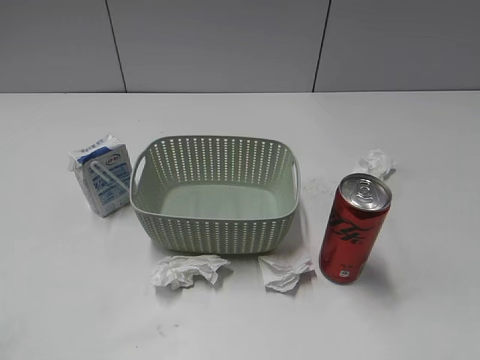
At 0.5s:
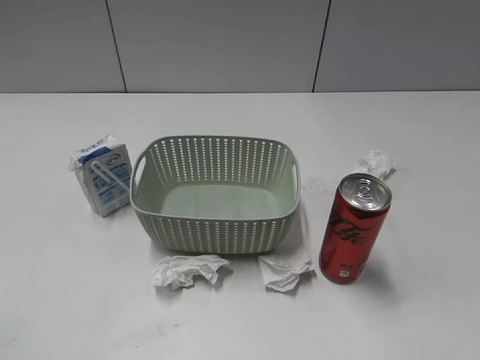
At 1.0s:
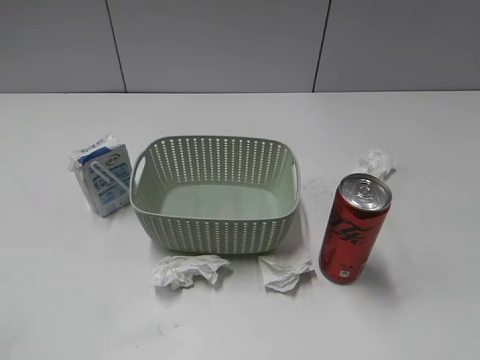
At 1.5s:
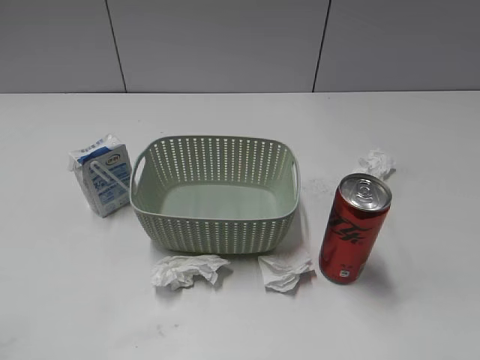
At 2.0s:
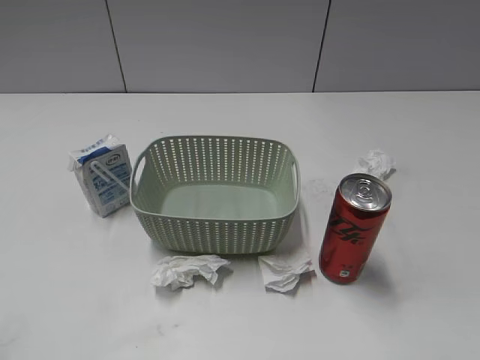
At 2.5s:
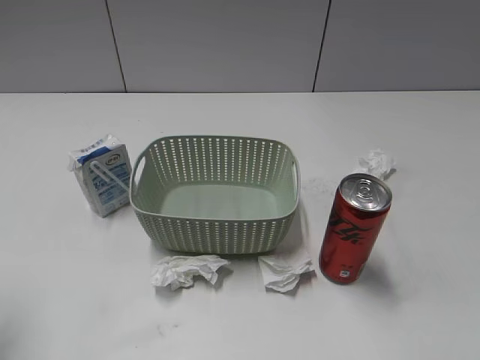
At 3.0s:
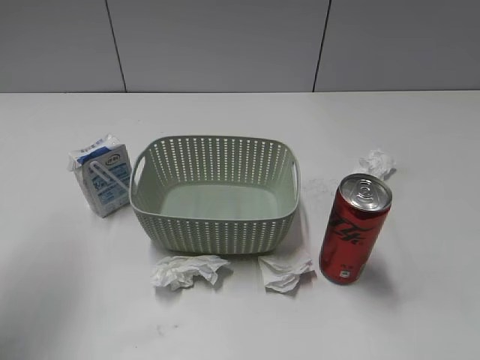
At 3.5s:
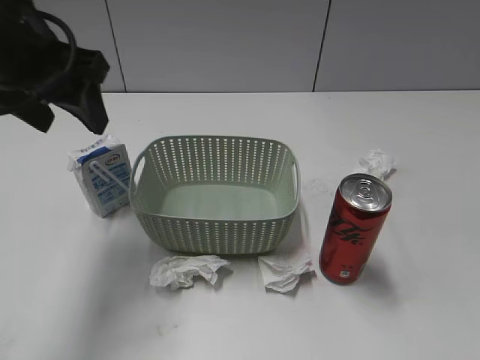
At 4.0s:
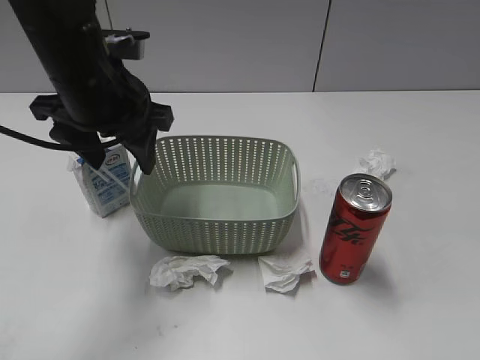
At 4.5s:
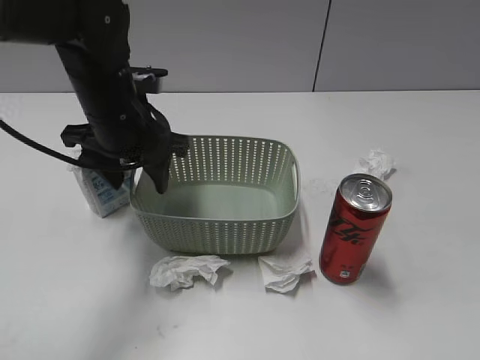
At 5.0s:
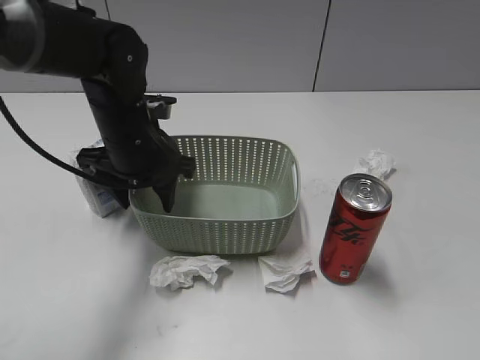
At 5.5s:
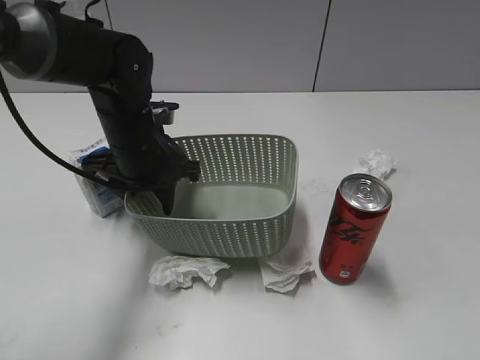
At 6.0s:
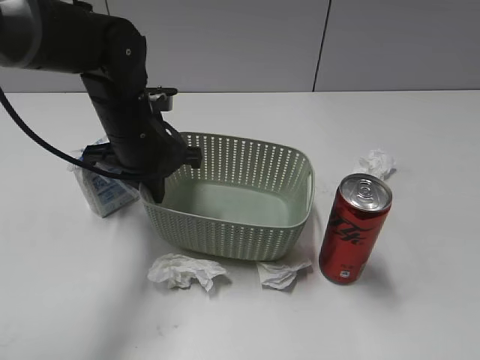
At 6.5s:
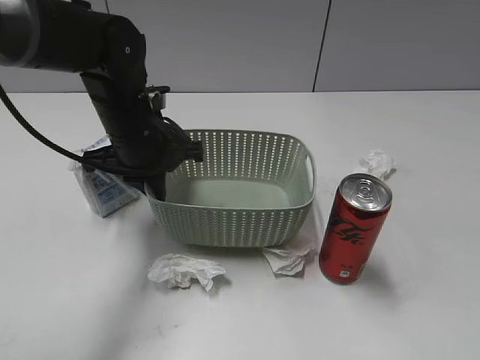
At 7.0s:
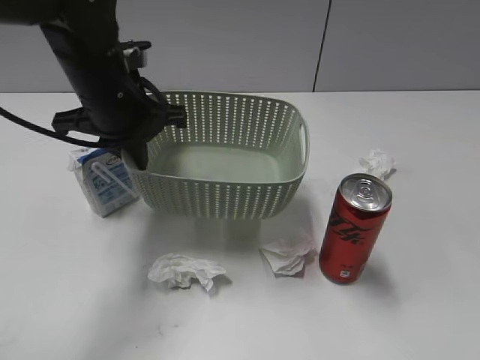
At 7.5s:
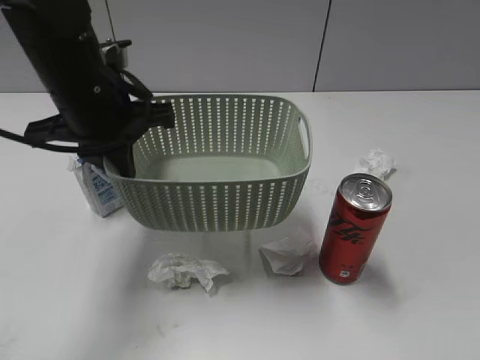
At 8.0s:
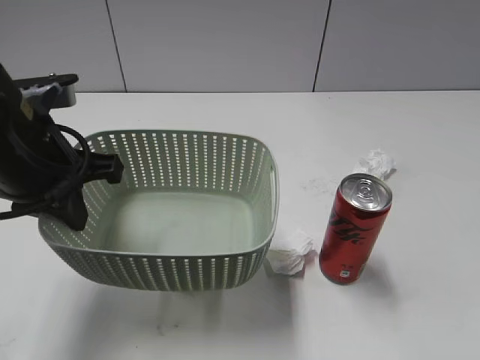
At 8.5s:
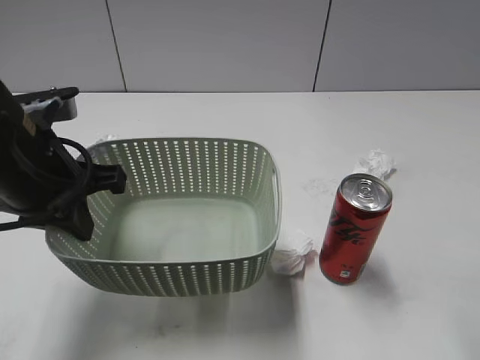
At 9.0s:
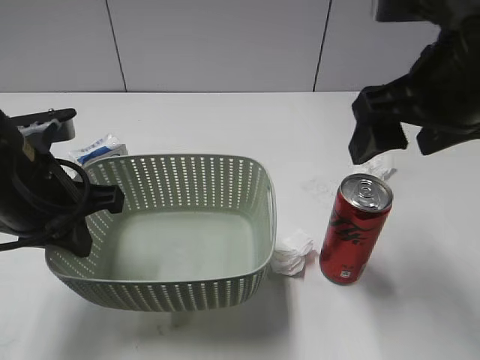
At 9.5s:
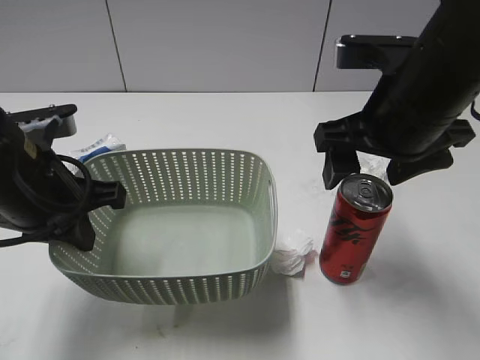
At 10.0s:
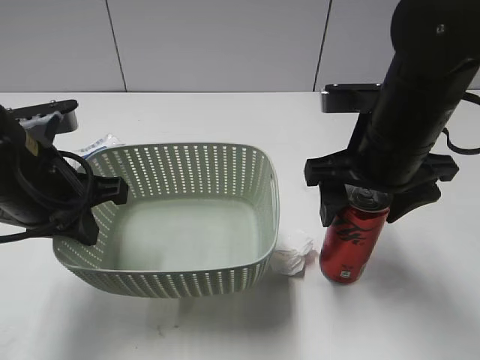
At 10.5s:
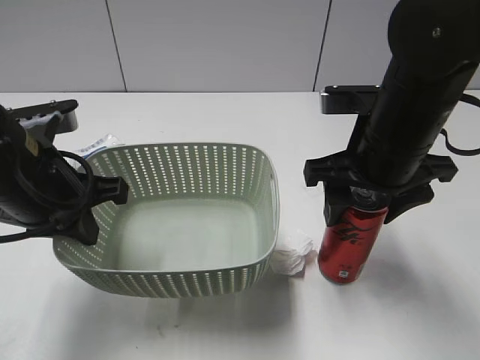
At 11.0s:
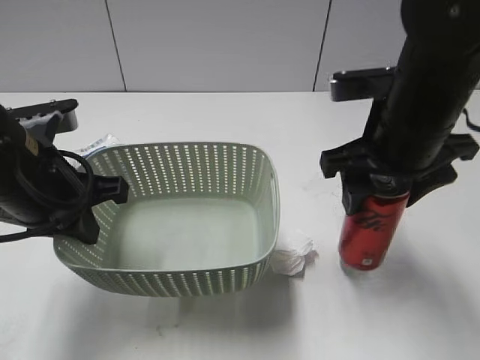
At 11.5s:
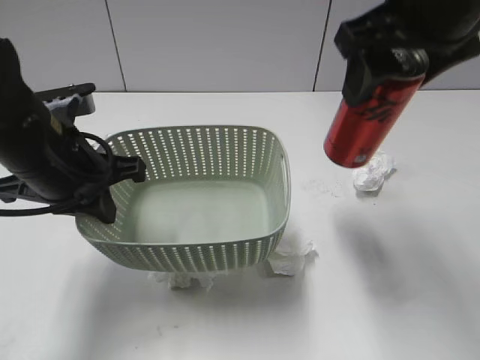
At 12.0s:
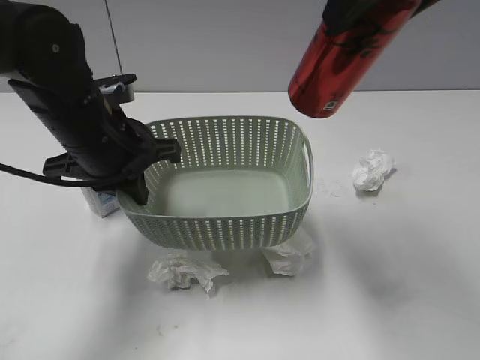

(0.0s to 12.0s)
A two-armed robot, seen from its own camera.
Step, 3.5s - 5.5s: Grasp the basket with left gripper.
Step, 6.0s - 8.5s: Lift the basket with left gripper.
Step, 9.0s - 10.5s: Grasp the cola can with right gripper.
2.0s - 4.0s: The left gripper shifts roughly 35 cm forward and to the right.
4.0s - 6.0s: The left gripper moves downward, approximately 10 cm, and closes.
6.0s - 8.0s: The left gripper travels backward, upward and to the left by roughly 15 cm. Meanwhile the right gripper heads upward and forward, covering approximately 10 cm, and closes up.
8.0s - 10.0s: The right gripper heads forward, to the left and downward, covering about 30 cm, and opens.
10.0s - 12.0s: The right gripper heads upward, covering about 20 cm, and closes; the left gripper shifts roughly 5 cm forward.

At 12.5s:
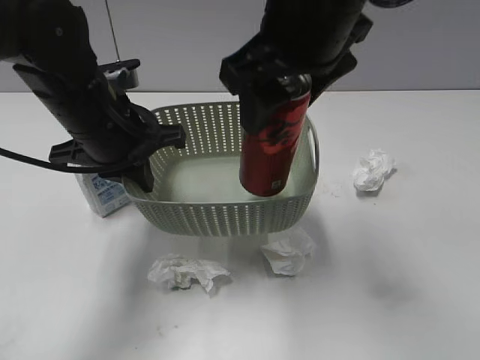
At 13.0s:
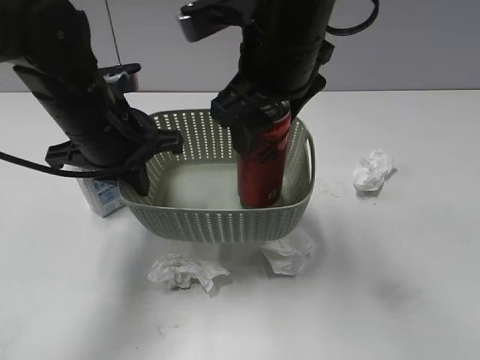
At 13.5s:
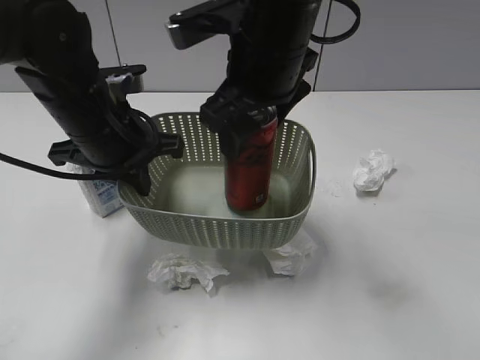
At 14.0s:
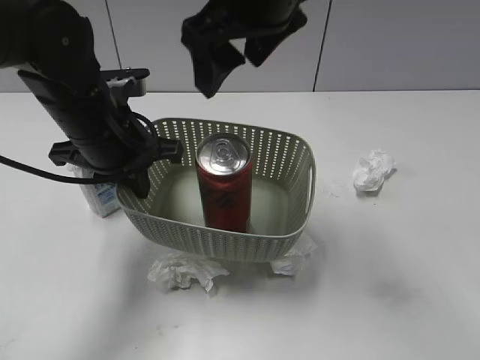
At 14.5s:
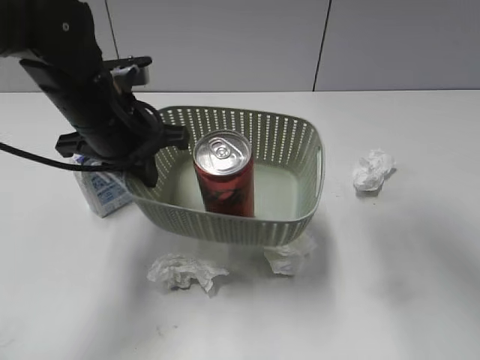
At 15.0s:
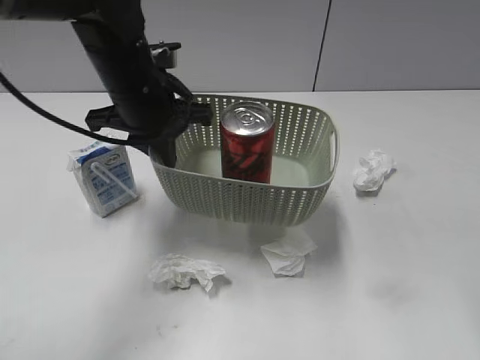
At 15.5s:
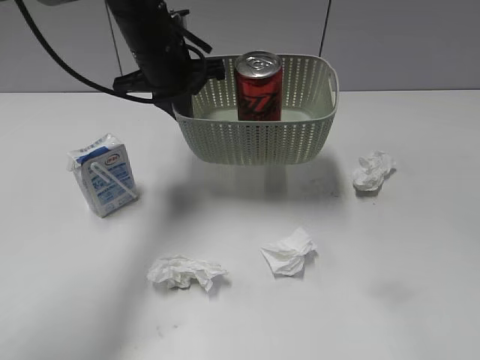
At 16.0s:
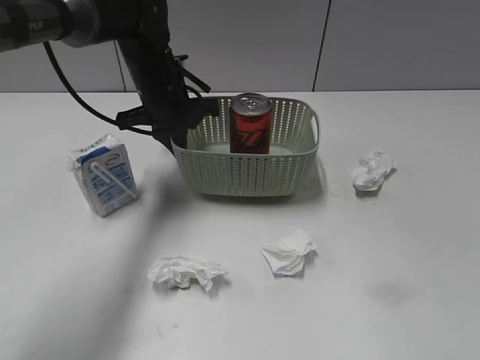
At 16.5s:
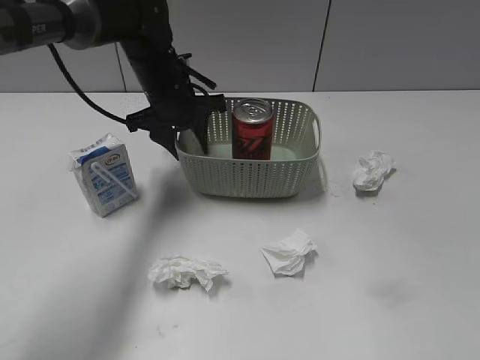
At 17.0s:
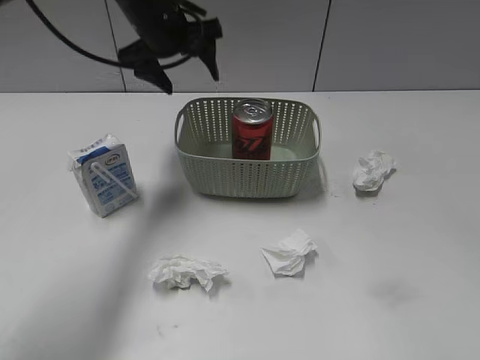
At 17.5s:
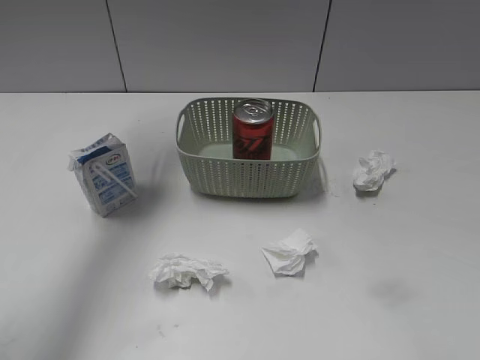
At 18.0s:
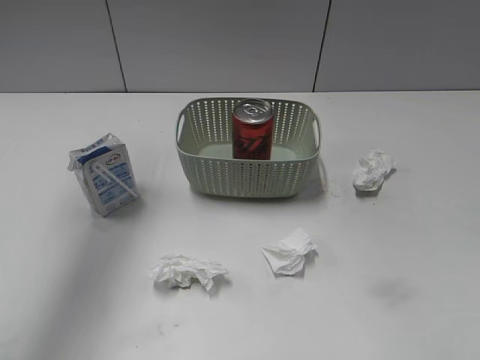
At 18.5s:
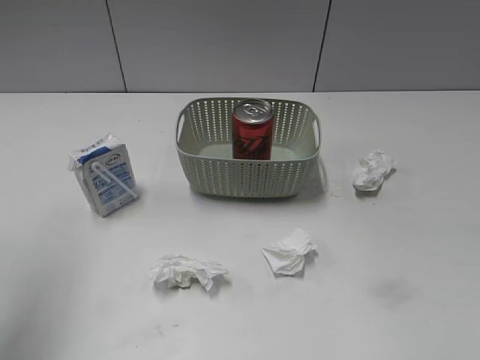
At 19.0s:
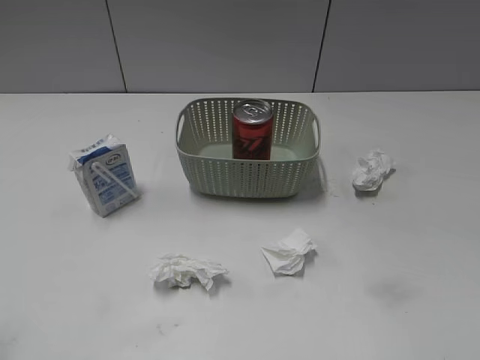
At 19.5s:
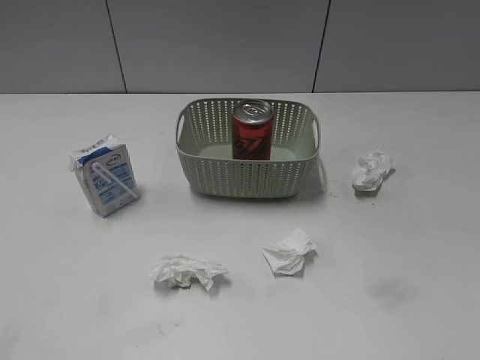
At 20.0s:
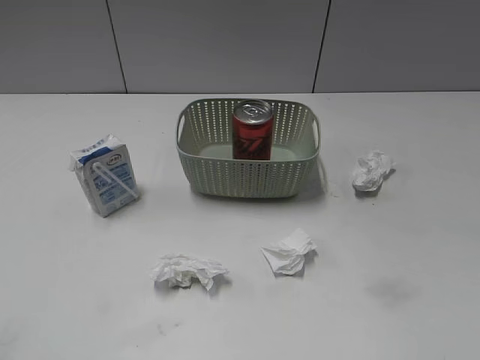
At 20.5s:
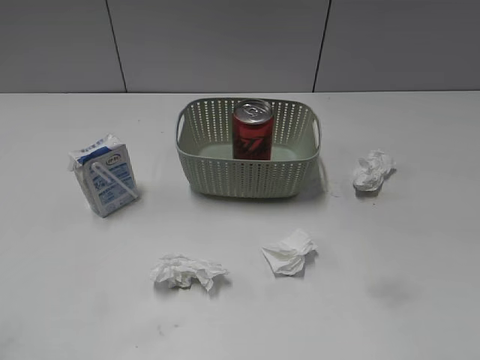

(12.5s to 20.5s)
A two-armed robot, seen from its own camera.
Step, 14.0s - 16.5s: Place the basket on the table with left gripper.
12.5s - 14.5s: The right gripper moves upward and to the right, roughly 15 cm, and opens up.
14.5s - 16.5s: The left gripper moves forward, roughly 15 cm, and opens its fingers. Meanwhile the right gripper travels backward, to the right and downward by about 35 cm.
16.5s - 18.5s: The left gripper moves upward, backward and to the left, about 40 cm.
18.5s - 20.5s: The left gripper heads backward and downward, covering roughly 25 cm.
